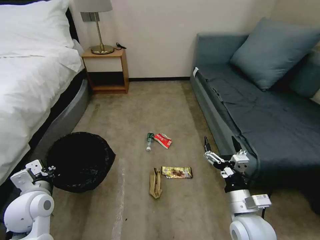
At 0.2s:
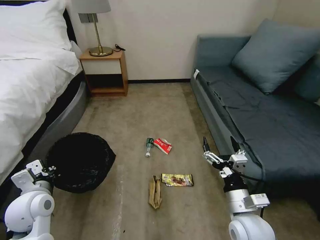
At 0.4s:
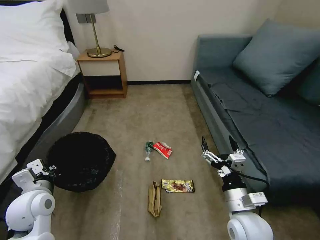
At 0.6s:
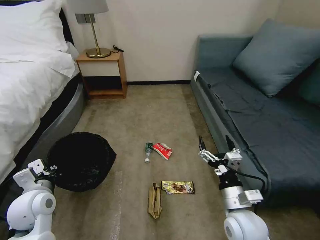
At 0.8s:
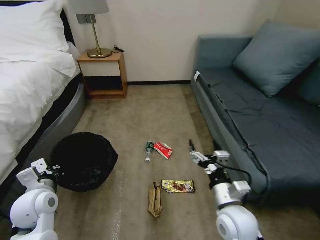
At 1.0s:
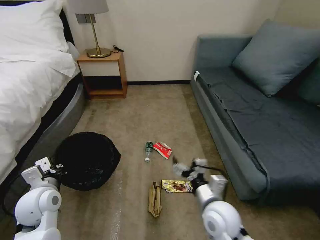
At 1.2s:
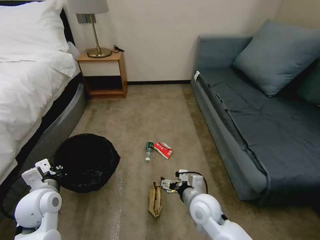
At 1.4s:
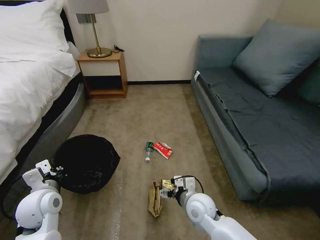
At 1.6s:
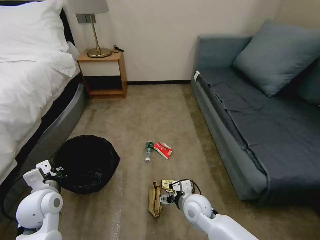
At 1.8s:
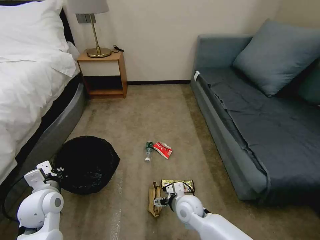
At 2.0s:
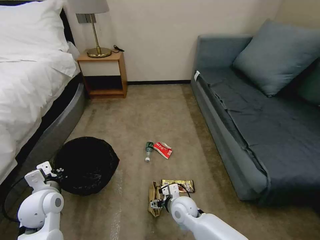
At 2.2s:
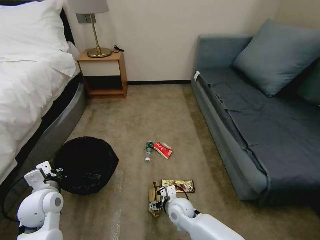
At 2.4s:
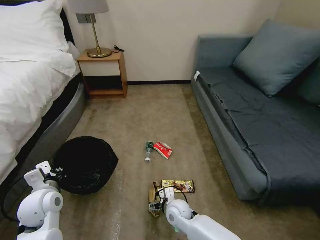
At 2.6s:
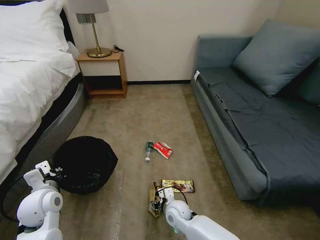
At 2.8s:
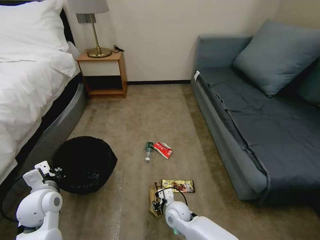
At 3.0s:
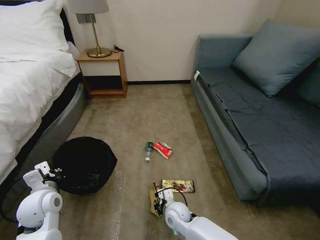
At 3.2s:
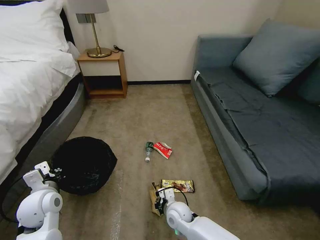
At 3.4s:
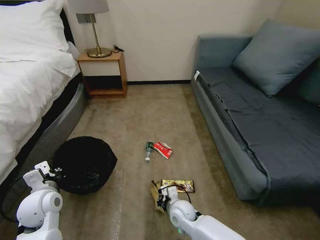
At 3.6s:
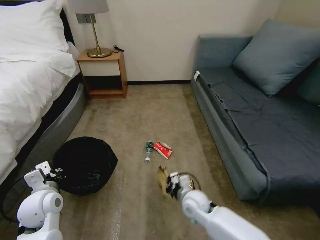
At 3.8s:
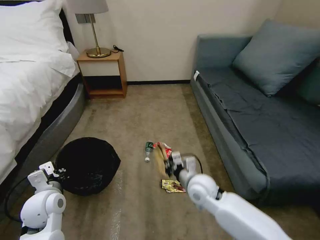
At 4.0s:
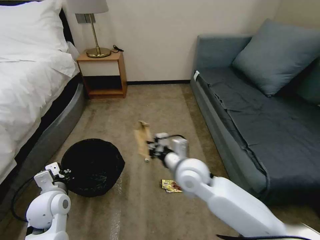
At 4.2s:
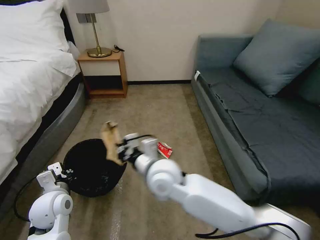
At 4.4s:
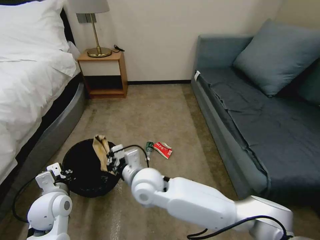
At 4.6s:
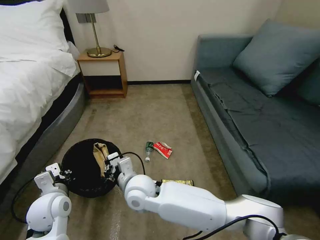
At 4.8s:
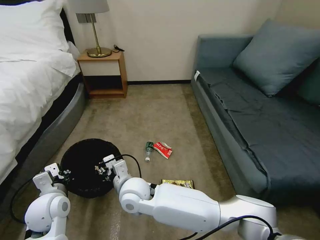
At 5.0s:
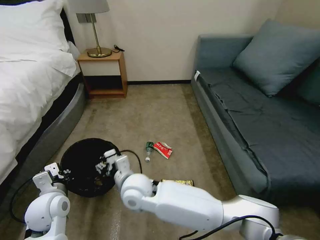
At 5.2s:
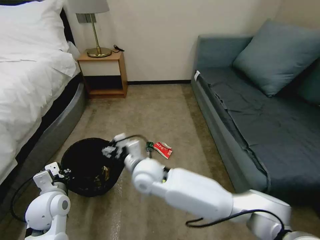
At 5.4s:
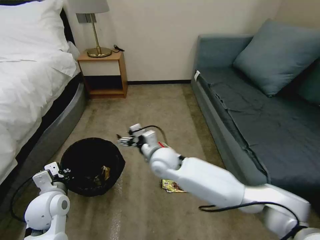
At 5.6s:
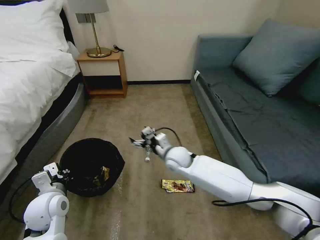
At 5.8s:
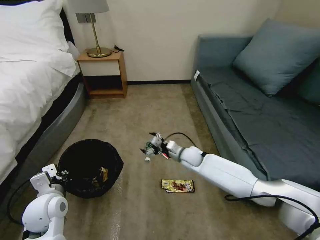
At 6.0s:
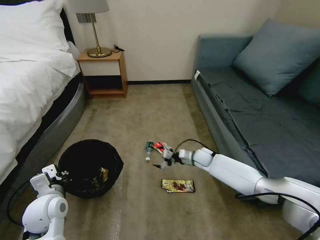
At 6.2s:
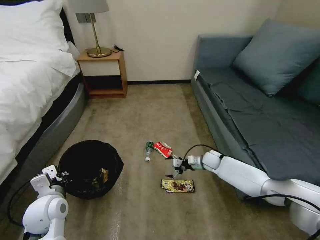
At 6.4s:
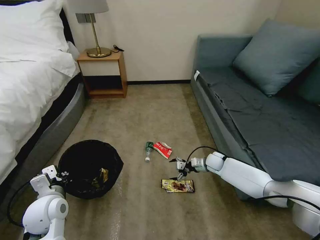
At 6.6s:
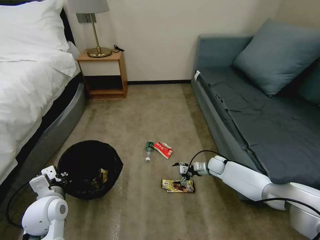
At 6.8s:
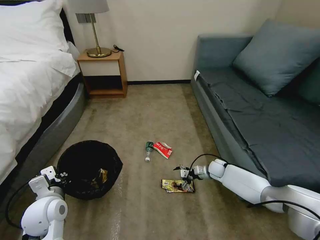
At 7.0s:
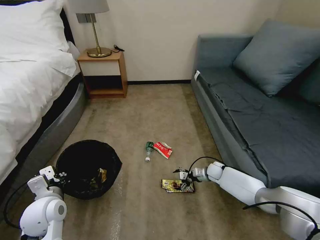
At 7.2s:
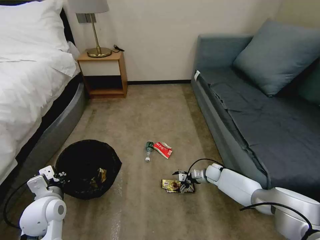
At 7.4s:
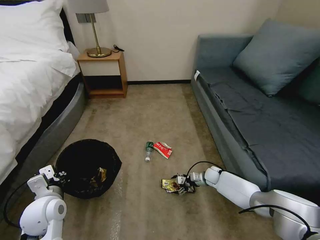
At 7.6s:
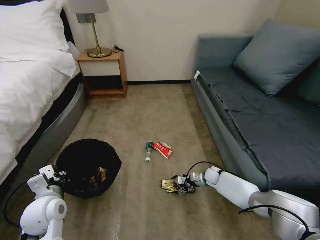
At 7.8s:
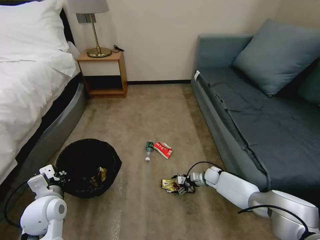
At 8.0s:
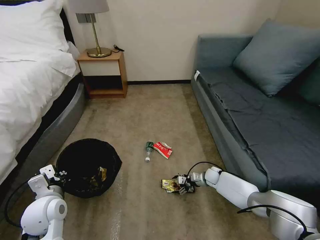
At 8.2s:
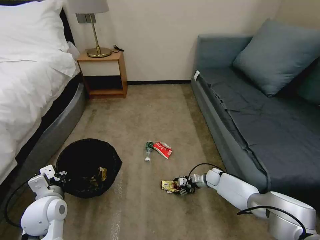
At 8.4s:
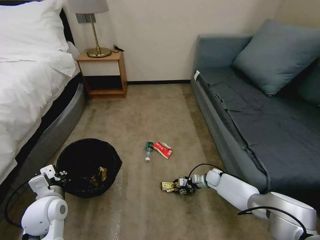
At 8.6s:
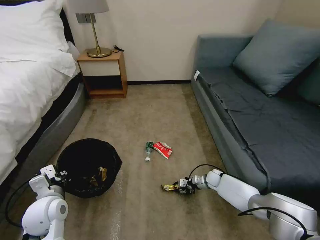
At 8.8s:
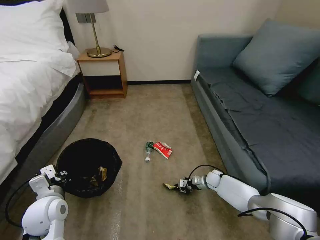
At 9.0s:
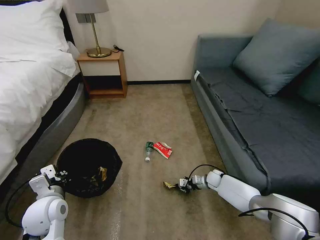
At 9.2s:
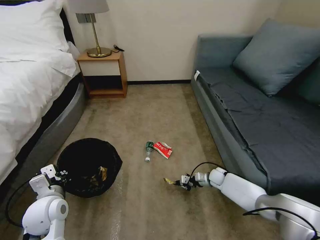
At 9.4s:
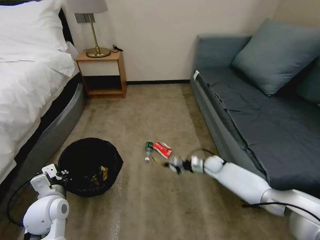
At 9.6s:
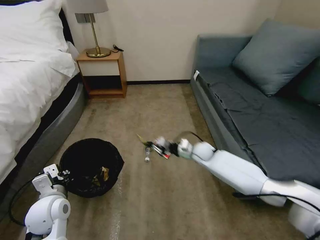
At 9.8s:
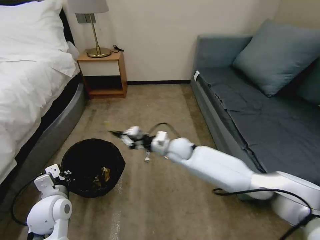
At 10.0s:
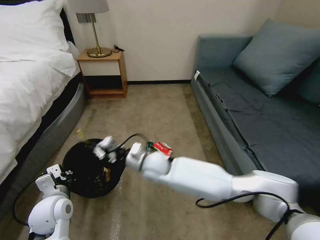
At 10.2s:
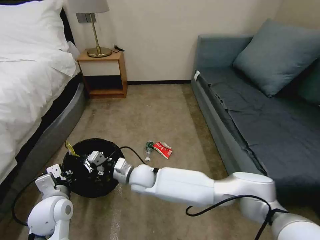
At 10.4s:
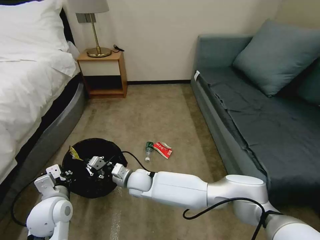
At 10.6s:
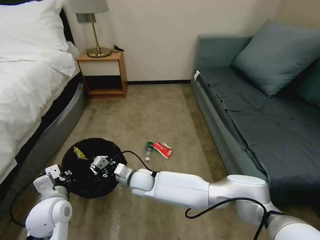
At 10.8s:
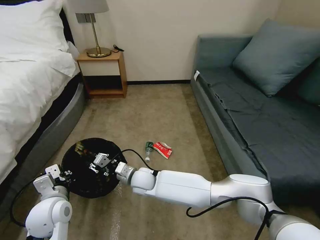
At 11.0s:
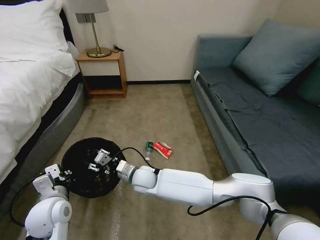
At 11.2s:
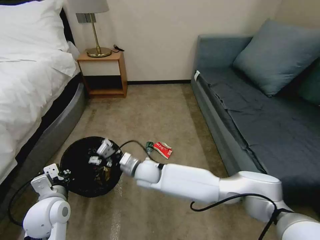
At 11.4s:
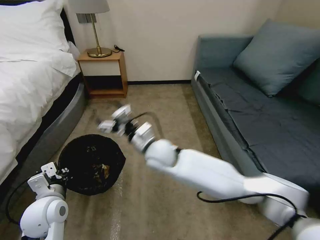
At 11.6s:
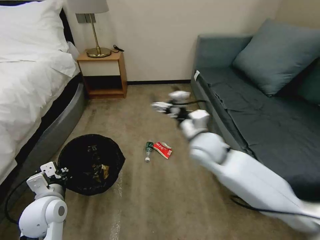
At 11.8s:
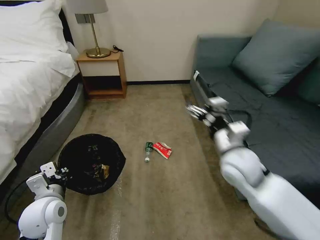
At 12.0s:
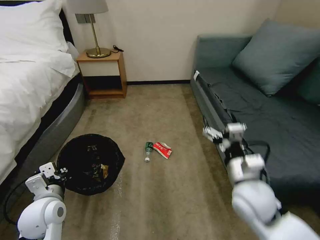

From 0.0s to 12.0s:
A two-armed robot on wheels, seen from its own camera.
Task of the whole recording: Pick up the trash bin, then pick up the garbage on the floor and place it into the trash bin.
From 0.0s to 1.6s: The right gripper goes about 20 cm downward, to the left and forward.
From 1.6s to 3.0s: The right gripper moves downward and to the left, roughly 10 cm, and closes its fingers.
From 3.0s to 4.4s: The right gripper shifts roughly 25 cm upward and to the left.
From 4.4s to 6.0s: The right gripper travels to the right, forward and downward by approximately 35 cm, and opens its fingers.
From 6.0s to 7.6s: The right gripper heads downward and to the right, covering some 15 cm.
From 7.6s to 9.0s: The right gripper closes its fingers.
From 9.0s to 10.4s: The right gripper moves to the left and upward, approximately 40 cm.
From 10.4s to 12.0s: The right gripper heads to the right and upward, covering roughly 35 cm, and opens.

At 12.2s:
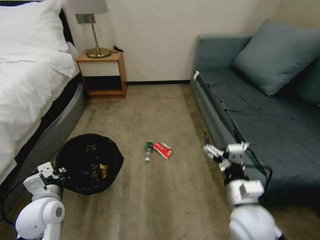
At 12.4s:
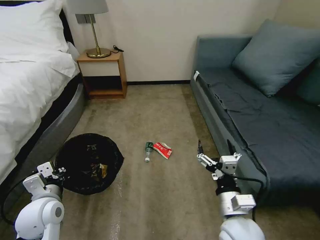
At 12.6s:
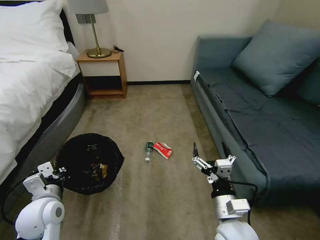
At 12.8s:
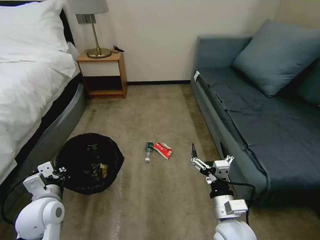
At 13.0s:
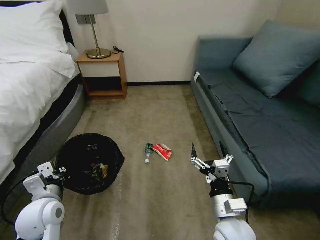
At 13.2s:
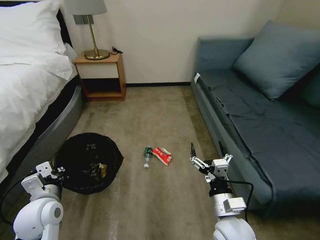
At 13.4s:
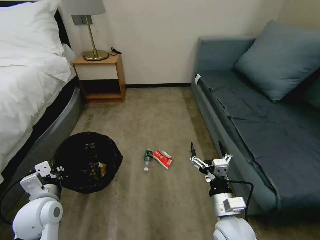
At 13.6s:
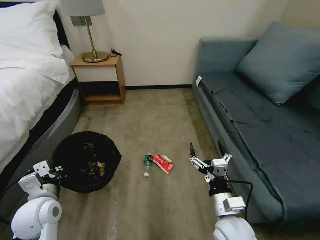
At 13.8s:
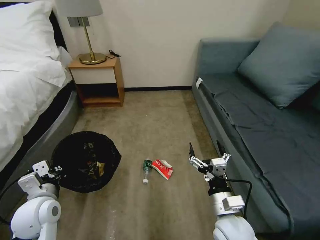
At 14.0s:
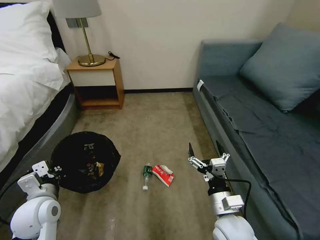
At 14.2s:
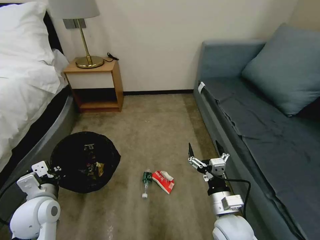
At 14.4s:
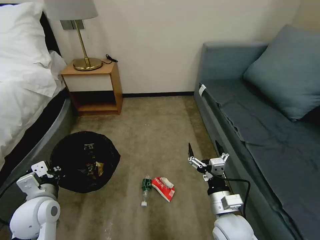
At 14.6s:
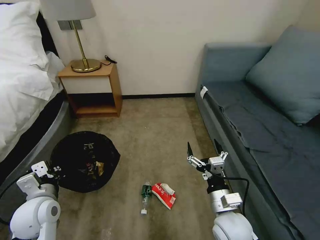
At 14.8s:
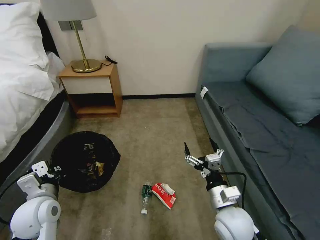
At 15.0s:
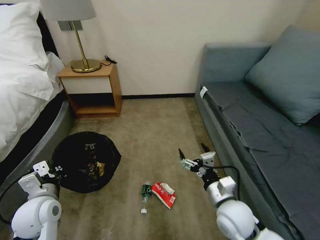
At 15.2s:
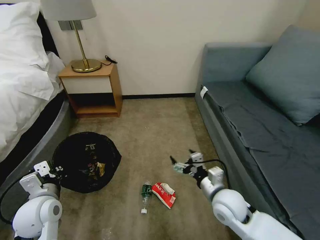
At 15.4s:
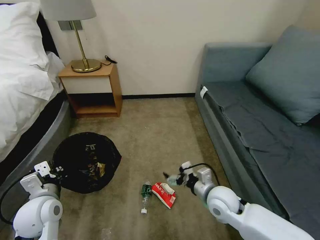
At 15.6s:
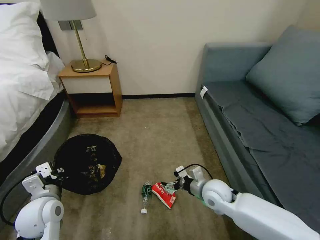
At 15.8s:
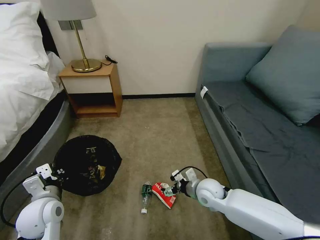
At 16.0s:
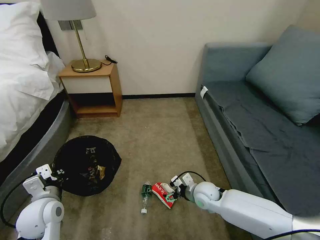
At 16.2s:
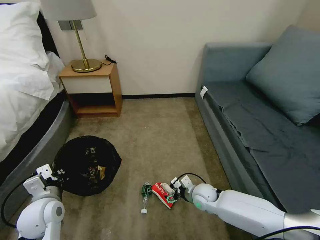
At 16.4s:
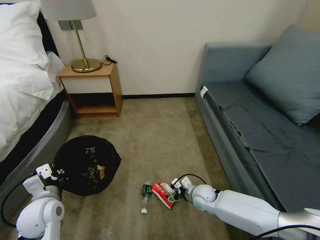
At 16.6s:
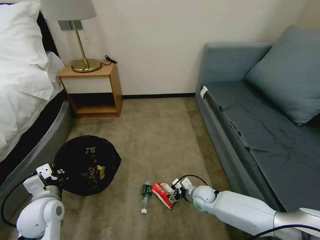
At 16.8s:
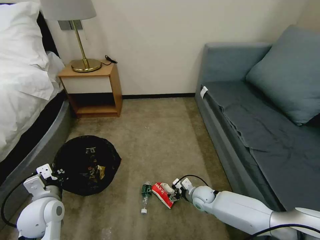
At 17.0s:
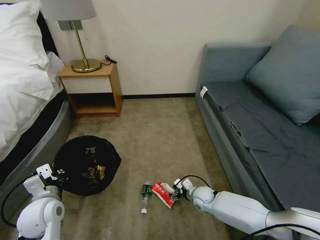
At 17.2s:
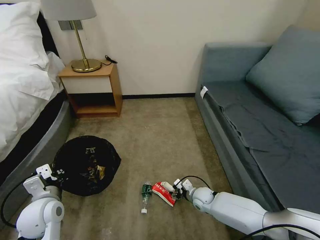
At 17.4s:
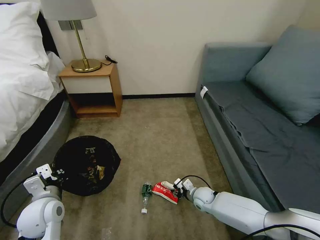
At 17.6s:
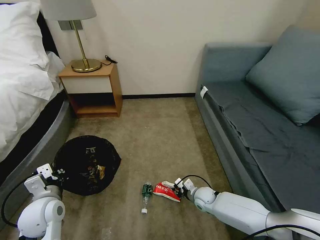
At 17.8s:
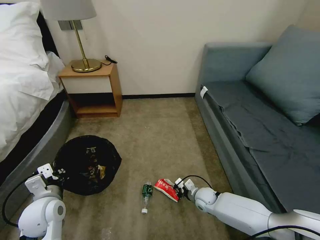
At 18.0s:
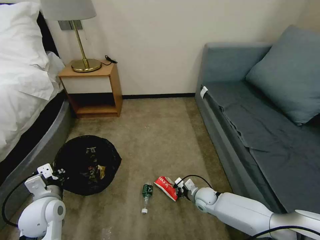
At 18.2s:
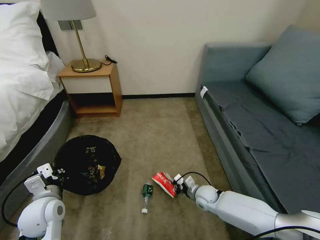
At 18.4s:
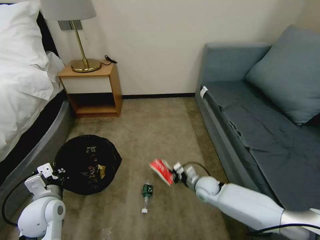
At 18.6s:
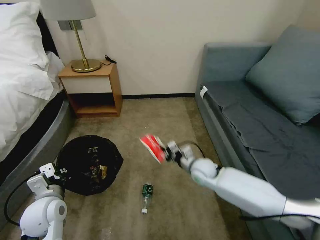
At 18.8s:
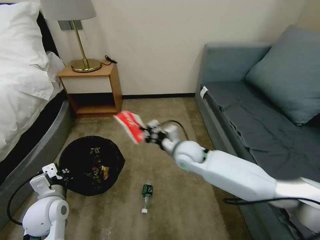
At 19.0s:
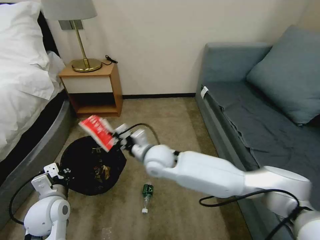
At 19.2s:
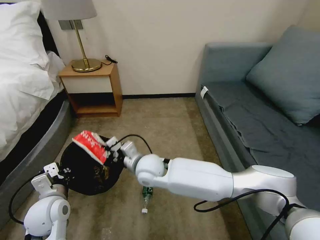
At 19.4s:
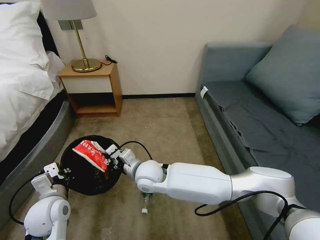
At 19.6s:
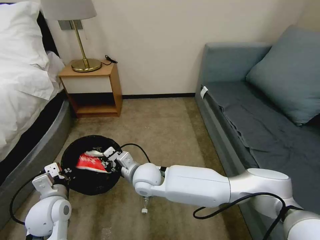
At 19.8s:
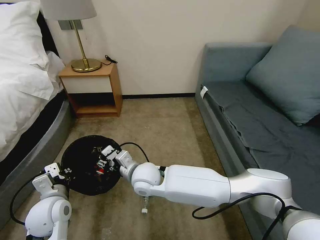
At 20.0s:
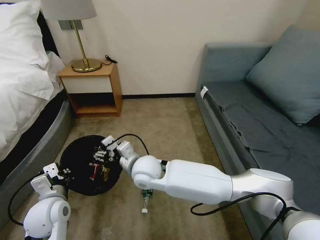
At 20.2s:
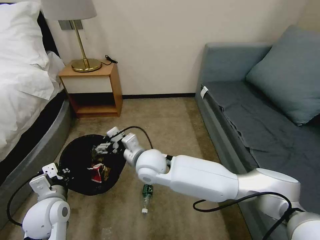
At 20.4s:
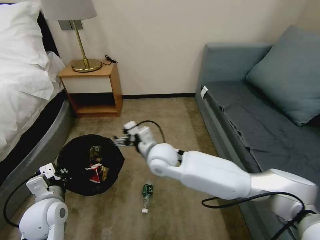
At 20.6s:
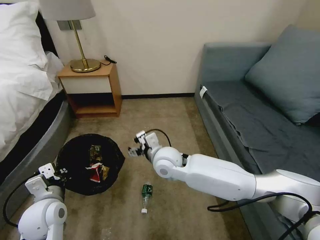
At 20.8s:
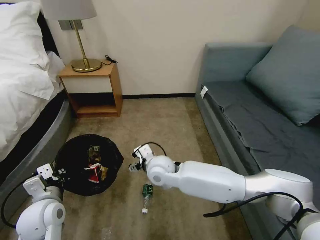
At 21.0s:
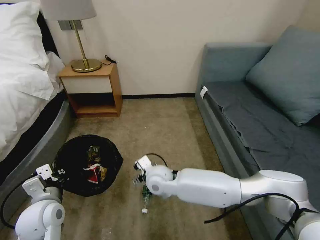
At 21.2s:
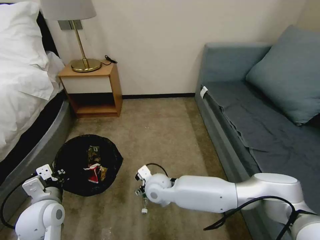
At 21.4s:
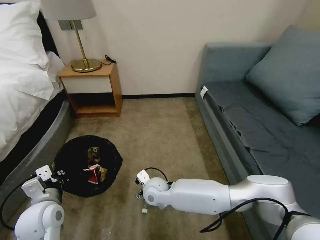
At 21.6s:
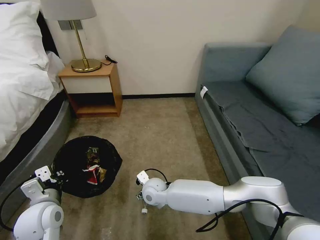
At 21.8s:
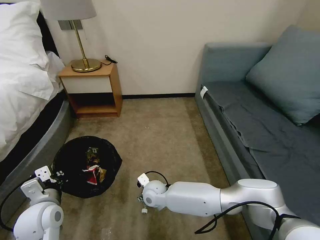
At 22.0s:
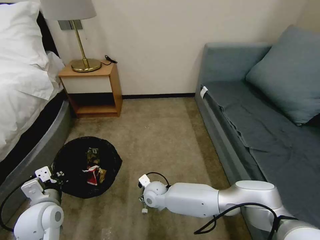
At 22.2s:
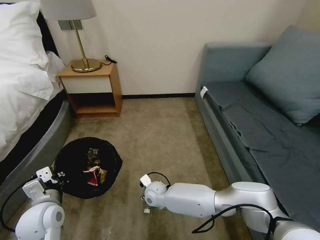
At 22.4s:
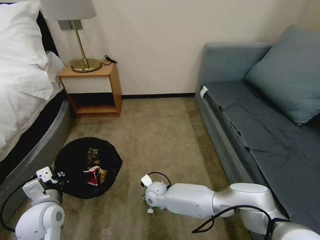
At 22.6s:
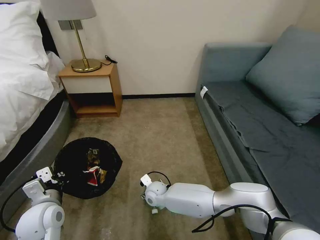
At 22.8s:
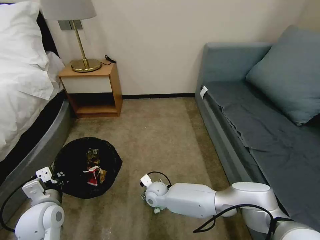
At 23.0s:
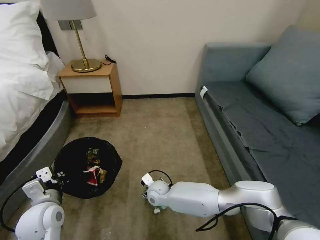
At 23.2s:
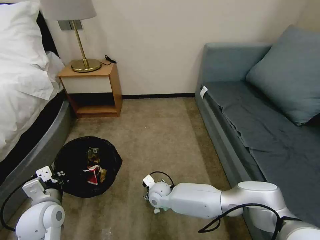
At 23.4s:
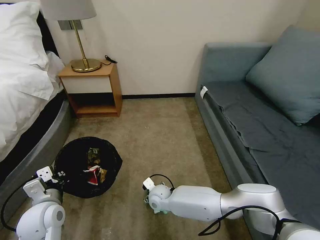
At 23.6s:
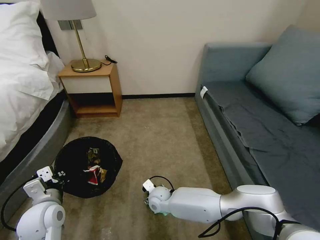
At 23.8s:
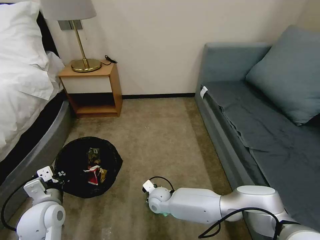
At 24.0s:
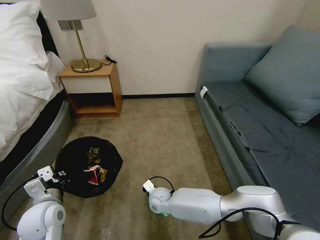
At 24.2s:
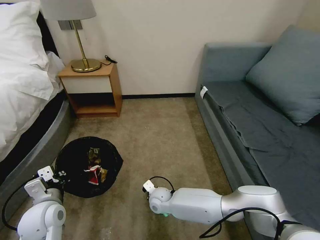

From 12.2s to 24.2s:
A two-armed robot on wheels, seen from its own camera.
Task of the whole recording: Pick up the trash bin, then pick up the garbage on the floor and place it into the trash bin.
From 12.2s to 13.8s: The right gripper moves downward, approximately 5 cm.
From 13.8s to 15.2s: The right gripper moves forward, about 5 cm.
From 15.2s to 16.6s: The right gripper heads downward and forward, covering approximately 20 cm.
From 16.6s to 18.2s: The right gripper closes.
From 18.2s to 19.8s: The right gripper shifts about 35 cm to the left and upward, and opens its fingers.
From 19.8s to 21.2s: The right gripper heads downward, covering approximately 5 cm, and opens its fingers.
From 21.2s to 22.6s: The right gripper travels downward by about 10 cm.
From 22.6s to 24.2s: The right gripper closes.
